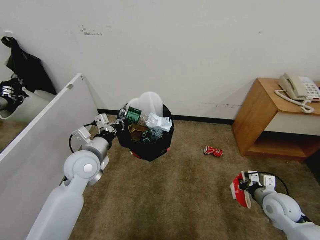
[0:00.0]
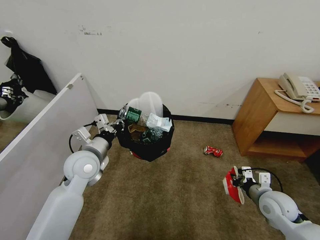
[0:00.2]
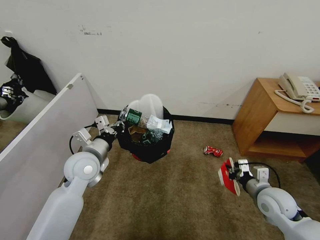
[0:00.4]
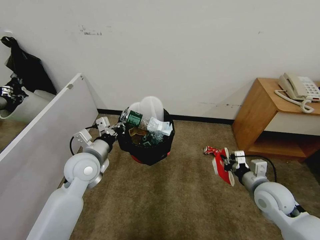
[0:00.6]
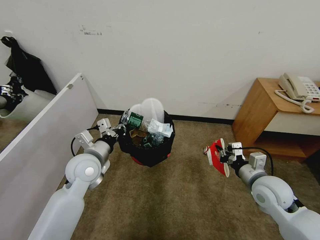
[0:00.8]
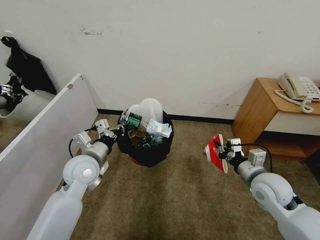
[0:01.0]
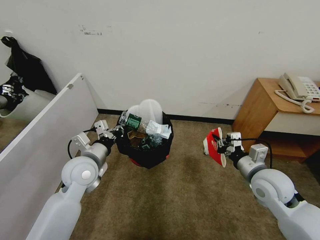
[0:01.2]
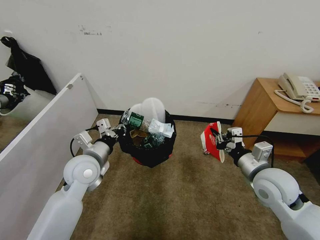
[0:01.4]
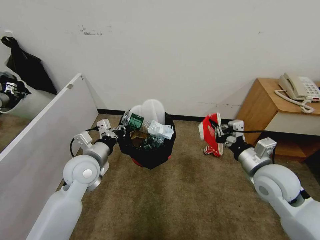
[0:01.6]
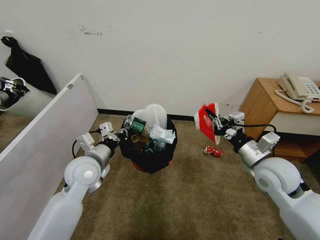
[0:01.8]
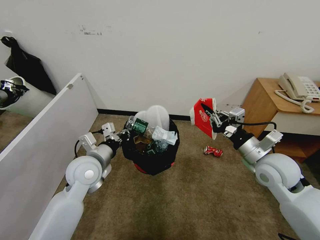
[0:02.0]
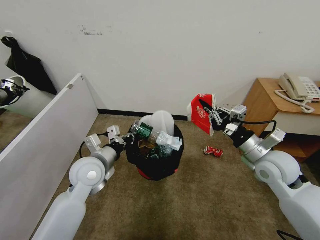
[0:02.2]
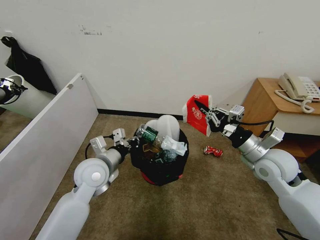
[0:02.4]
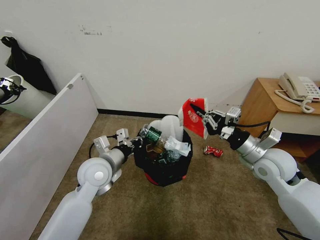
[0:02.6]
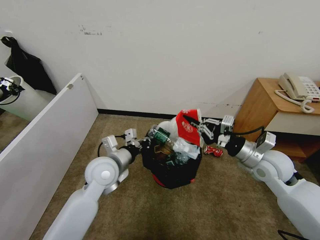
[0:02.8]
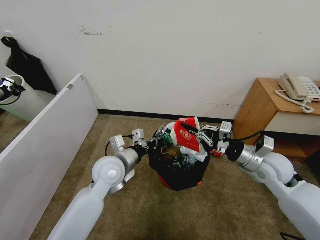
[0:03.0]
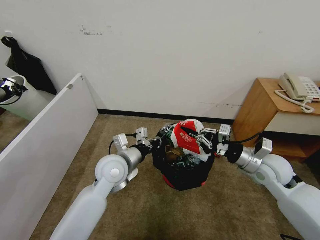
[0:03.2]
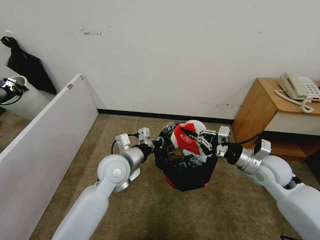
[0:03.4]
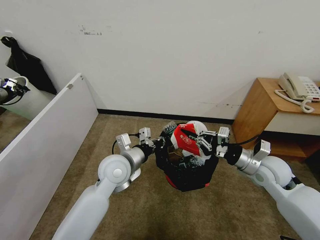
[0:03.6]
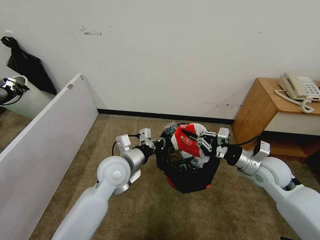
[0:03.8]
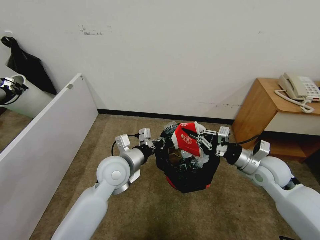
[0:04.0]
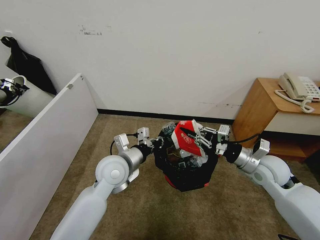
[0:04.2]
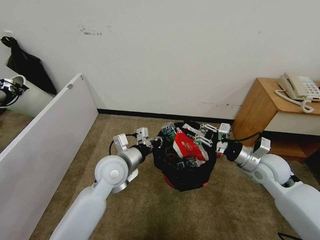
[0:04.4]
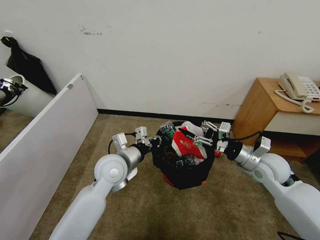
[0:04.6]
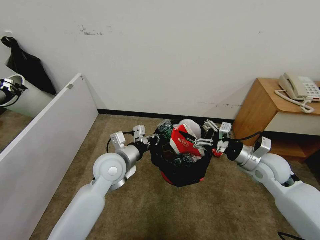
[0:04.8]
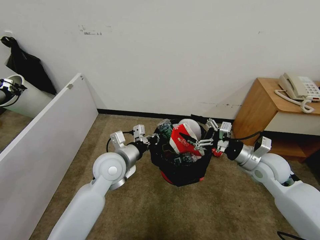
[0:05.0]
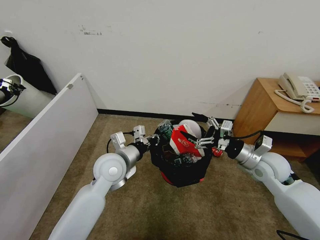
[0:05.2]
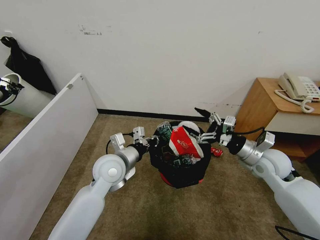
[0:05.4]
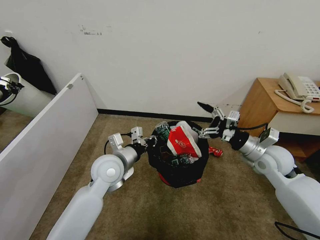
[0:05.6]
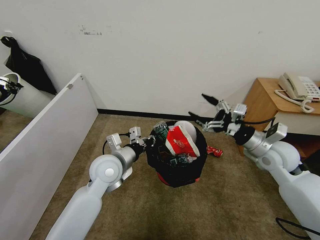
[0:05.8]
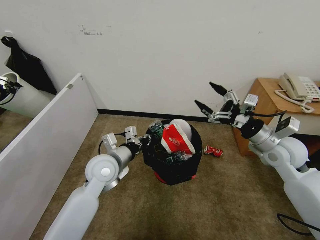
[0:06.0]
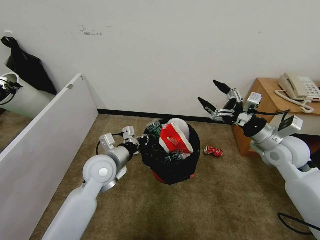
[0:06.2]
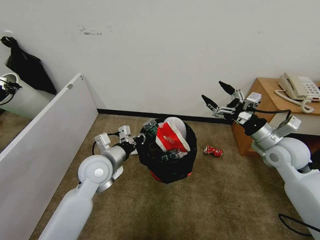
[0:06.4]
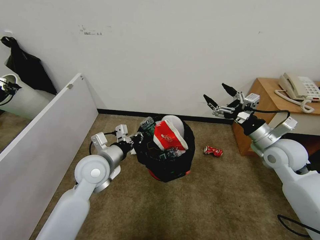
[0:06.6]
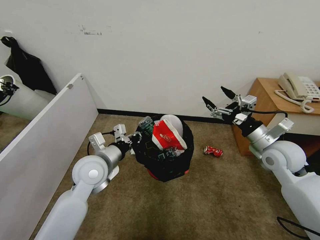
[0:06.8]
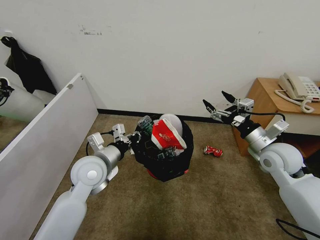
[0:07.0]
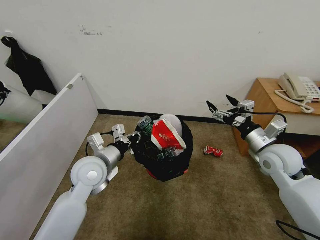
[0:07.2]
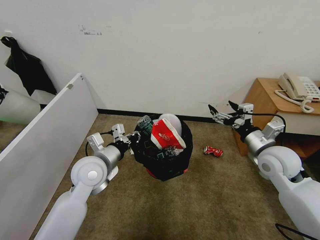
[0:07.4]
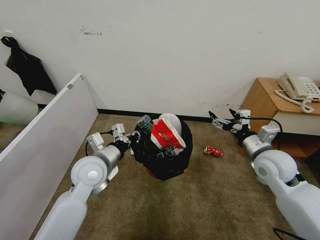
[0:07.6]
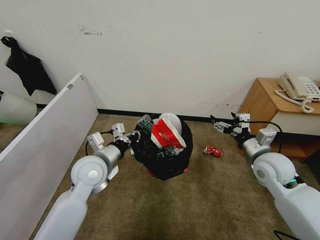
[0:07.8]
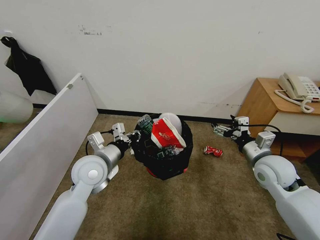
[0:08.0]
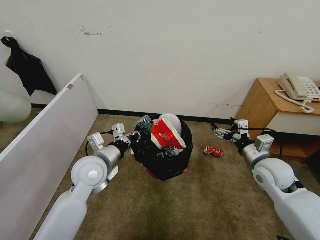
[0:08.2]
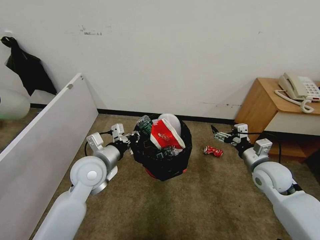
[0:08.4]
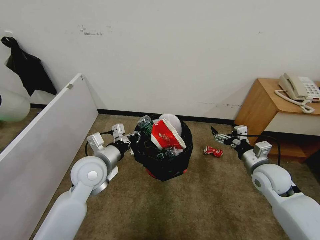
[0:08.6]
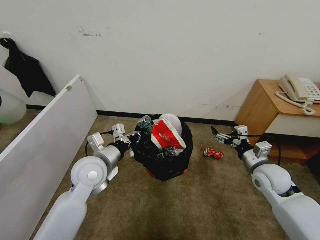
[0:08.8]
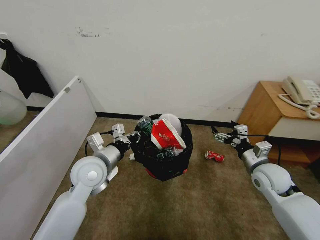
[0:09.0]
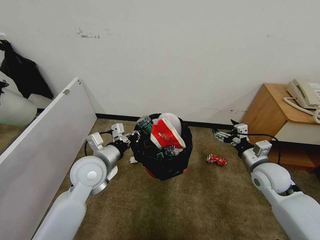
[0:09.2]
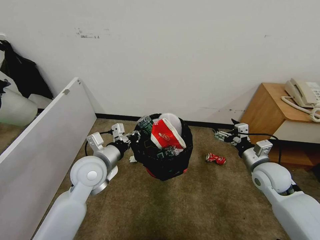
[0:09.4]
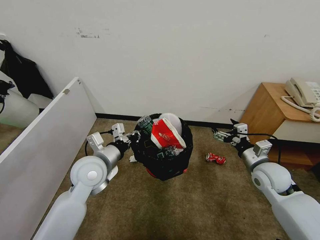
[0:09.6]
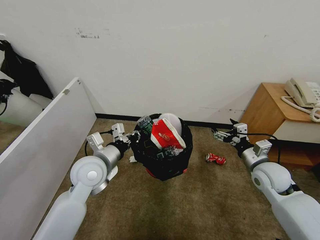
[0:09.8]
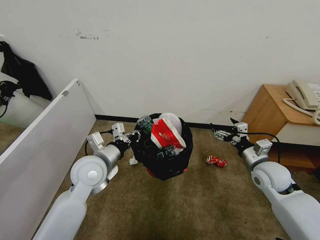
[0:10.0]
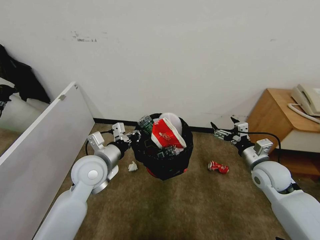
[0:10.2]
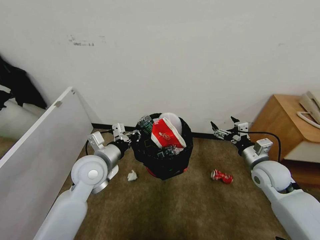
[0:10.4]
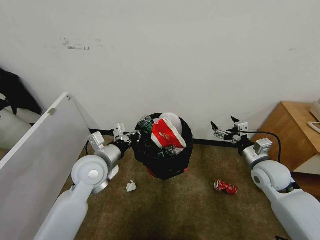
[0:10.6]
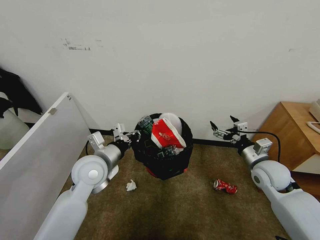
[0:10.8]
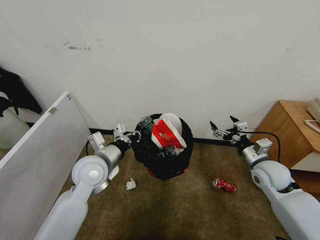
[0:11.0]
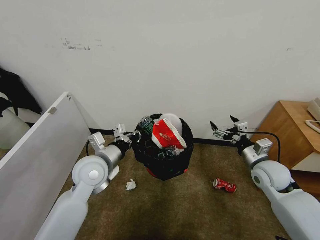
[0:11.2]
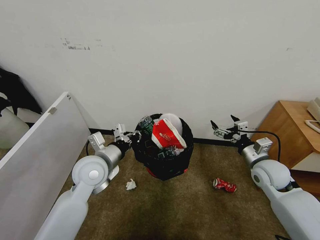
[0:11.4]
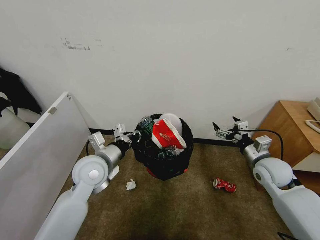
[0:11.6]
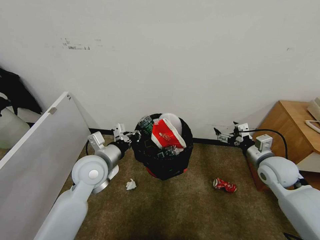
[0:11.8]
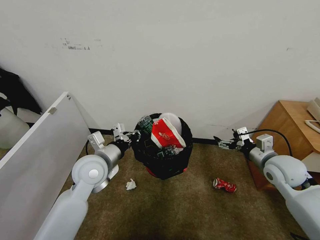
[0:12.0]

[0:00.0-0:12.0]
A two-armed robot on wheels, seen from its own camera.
Task of the whole recording: Pick up the trash bin, then pick up the garbage from the floor and place it into the trash bin.
0:00.0 to 0:01.6: The right gripper heads upward and to the left, covering approximately 20 cm.
0:01.6 to 0:03.0: The right gripper heads forward, covering some 5 cm; the left gripper moves to the right, about 5 cm.
0:03.0 to 0:04.4: The right gripper opens up.
0:04.4 to 0:06.0: The right gripper is displaced upward by some 5 cm, and opens.
0:07.6 to 0:09.0: The right gripper travels downward by roughly 5 cm.
0:09.0 to 0:10.4: The two grippers keep their place.

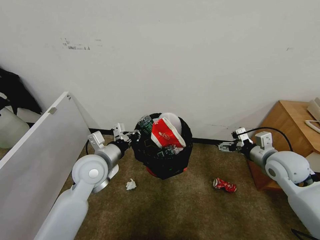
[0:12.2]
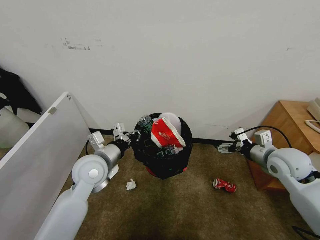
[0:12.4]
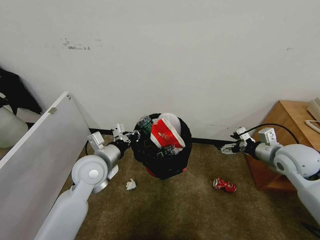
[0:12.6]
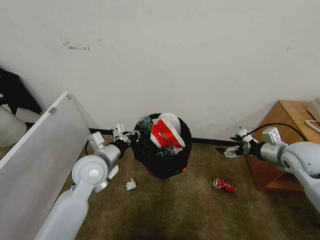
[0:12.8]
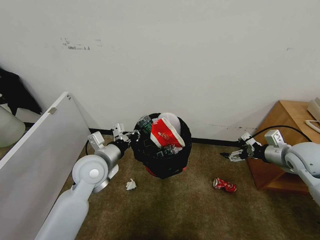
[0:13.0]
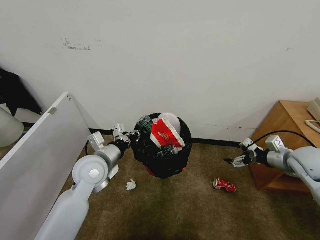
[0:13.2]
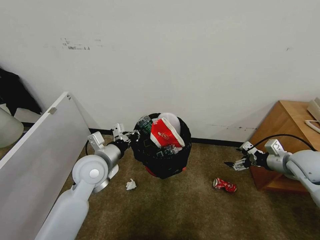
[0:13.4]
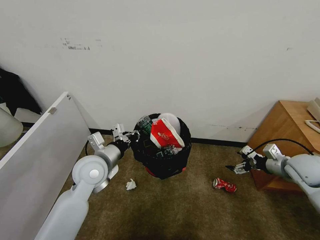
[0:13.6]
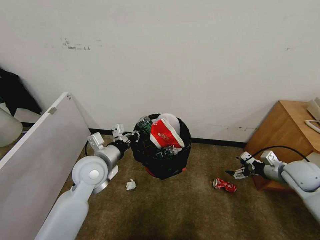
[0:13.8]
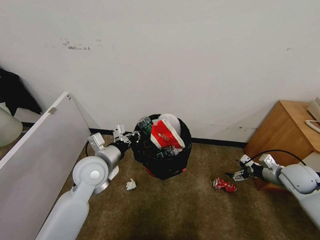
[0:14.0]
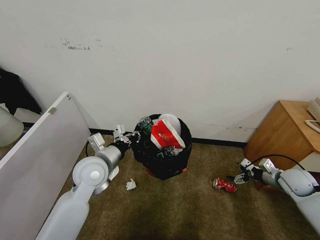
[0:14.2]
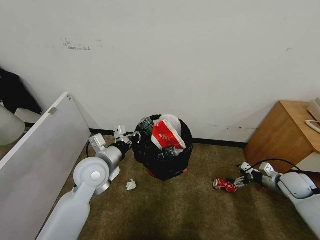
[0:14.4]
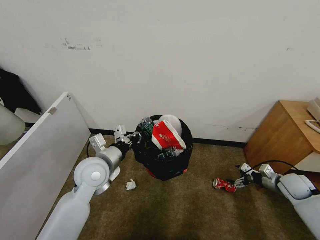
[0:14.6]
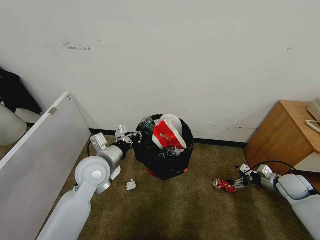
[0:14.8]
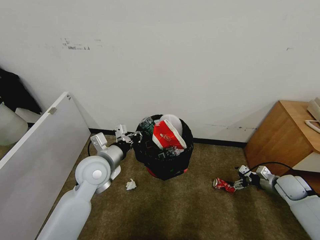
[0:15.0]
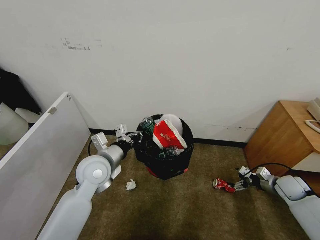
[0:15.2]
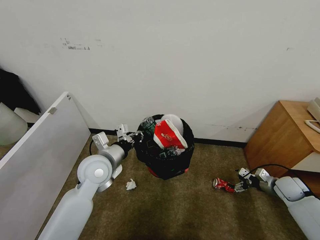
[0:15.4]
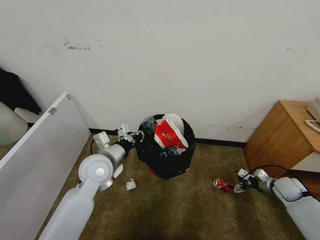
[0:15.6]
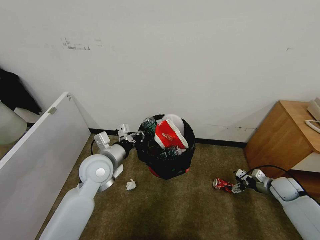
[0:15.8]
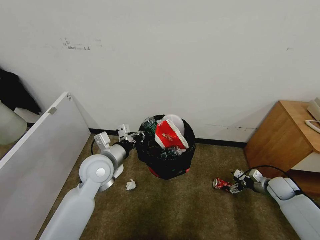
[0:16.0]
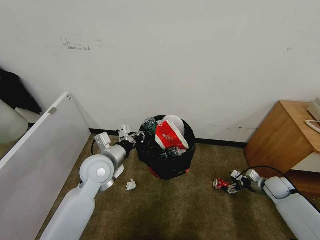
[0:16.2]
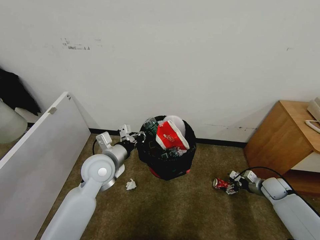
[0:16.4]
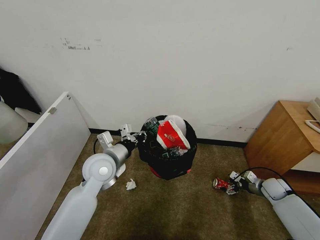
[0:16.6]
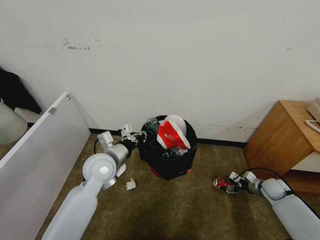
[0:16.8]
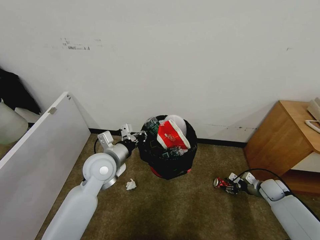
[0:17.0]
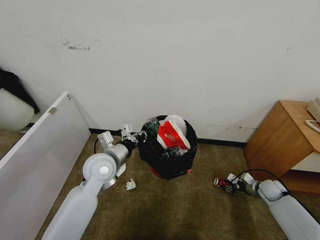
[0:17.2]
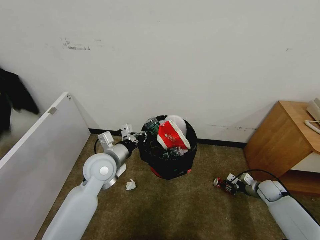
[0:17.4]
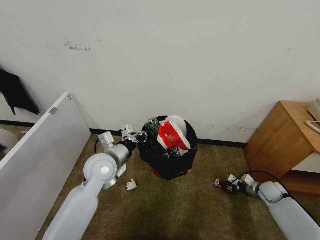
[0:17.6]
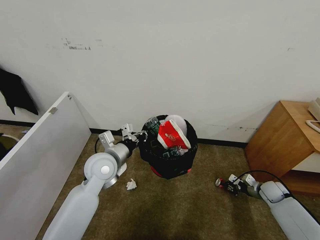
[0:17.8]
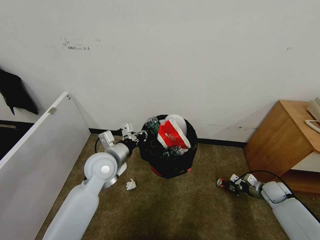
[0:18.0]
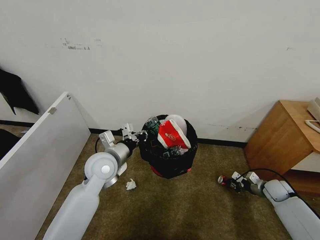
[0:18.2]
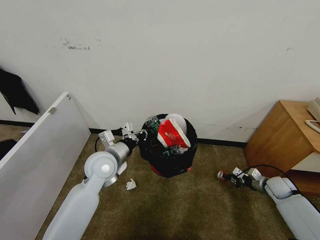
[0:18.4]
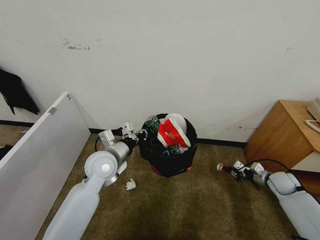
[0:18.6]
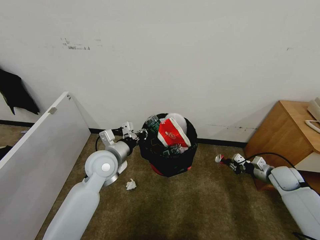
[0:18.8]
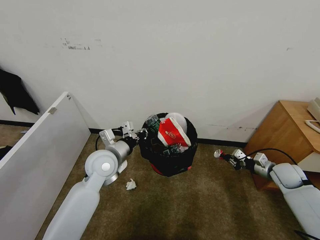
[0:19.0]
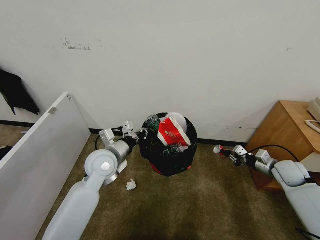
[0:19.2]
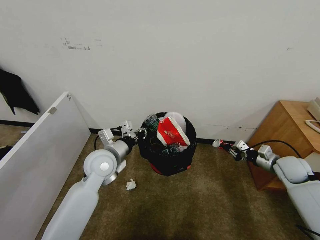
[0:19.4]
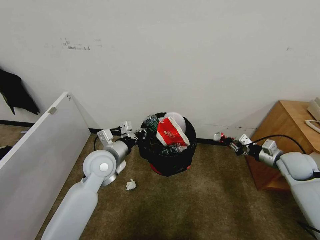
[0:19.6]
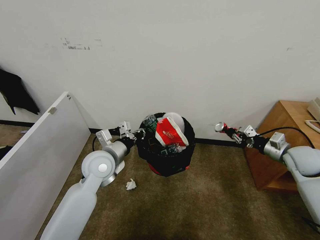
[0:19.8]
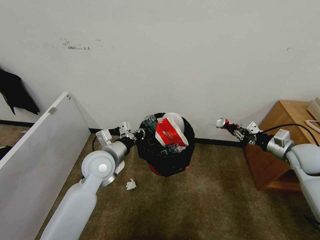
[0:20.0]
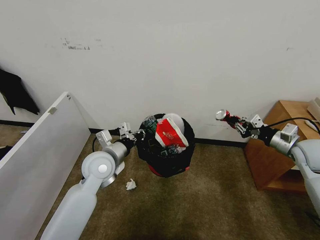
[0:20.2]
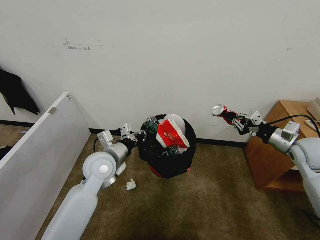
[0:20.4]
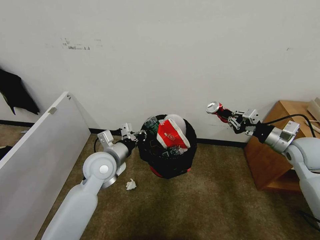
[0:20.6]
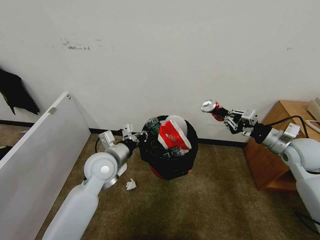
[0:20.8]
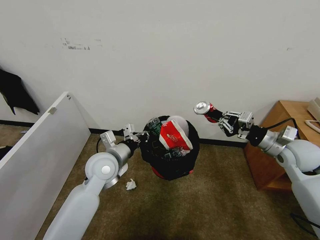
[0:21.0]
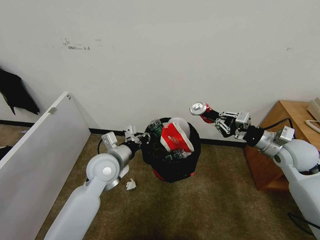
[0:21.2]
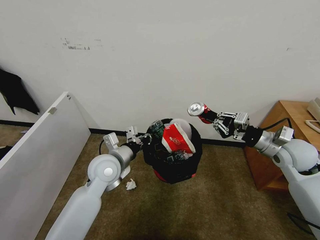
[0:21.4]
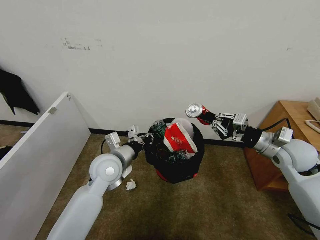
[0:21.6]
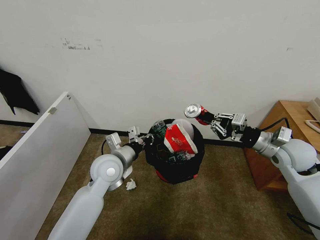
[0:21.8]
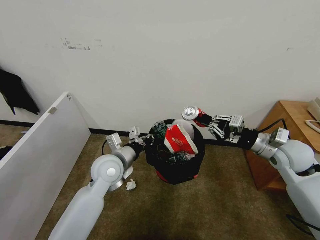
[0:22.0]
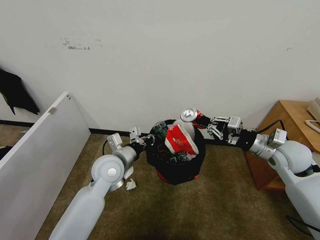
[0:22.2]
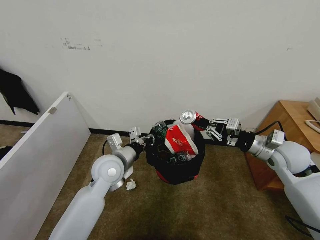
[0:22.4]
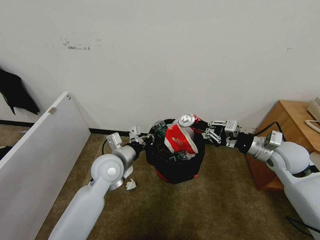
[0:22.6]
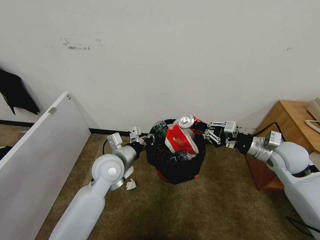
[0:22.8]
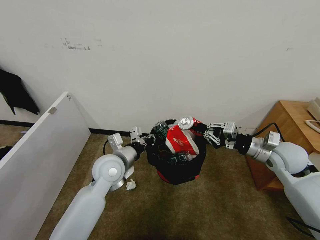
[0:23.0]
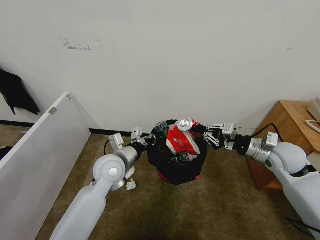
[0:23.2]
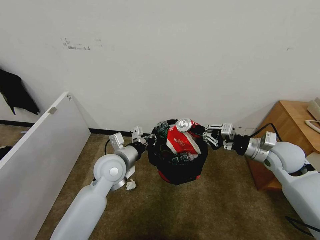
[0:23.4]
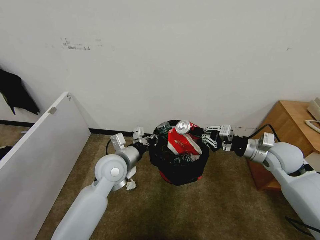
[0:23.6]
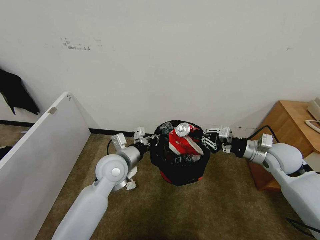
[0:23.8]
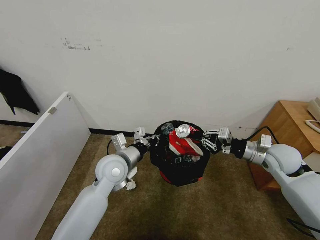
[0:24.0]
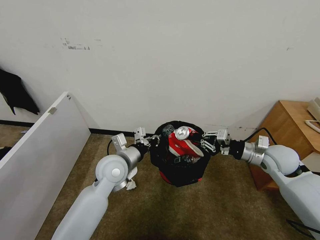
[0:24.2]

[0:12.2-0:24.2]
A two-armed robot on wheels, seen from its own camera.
Task of the whole recording: Pick up the trash bin, then pick up the garbage from the floor and place it into the trash bin.
0:12.2 to 0:13.8: The right gripper travels to the right and downward by roughly 10 cm.
0:13.8 to 0:15.2: The right gripper shifts roughly 10 cm downward.
0:15.2 to 0:16.6: The right gripper heads downward, covering some 5 cm.
0:16.6 to 0:18.2: The right gripper closes its fingers.
0:18.2 to 0:19.8: The right gripper travels upward by approximately 20 cm.
0:19.8 to 0:21.2: The right gripper travels to the left and upward by some 10 cm.
0:21.2 to 0:24.2: The grippers move only a little.
